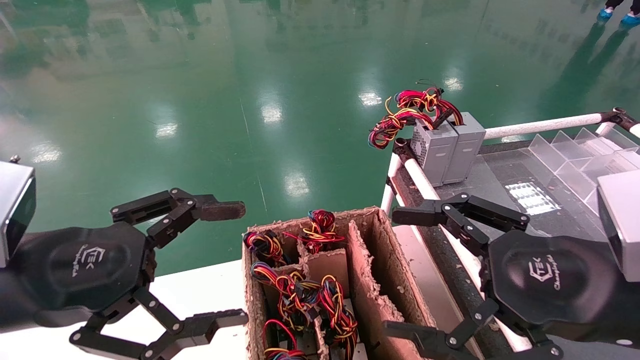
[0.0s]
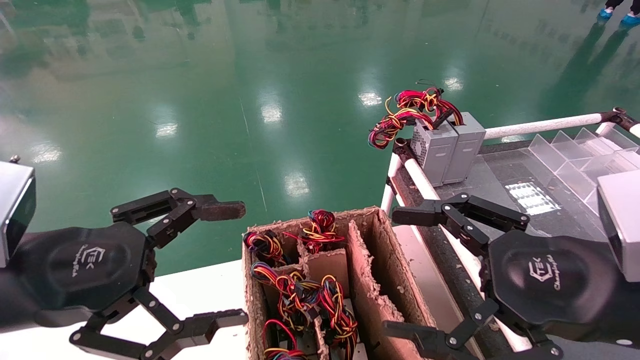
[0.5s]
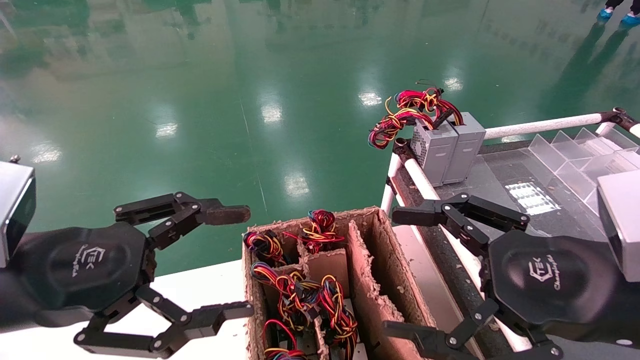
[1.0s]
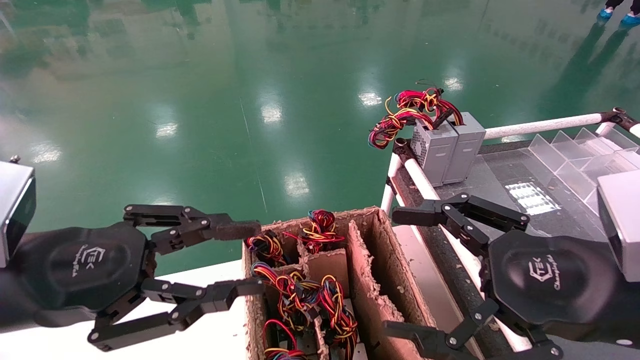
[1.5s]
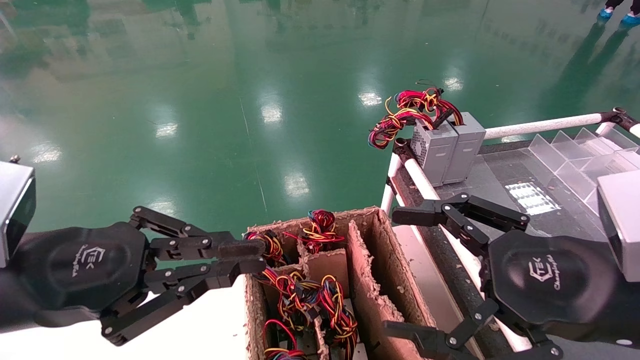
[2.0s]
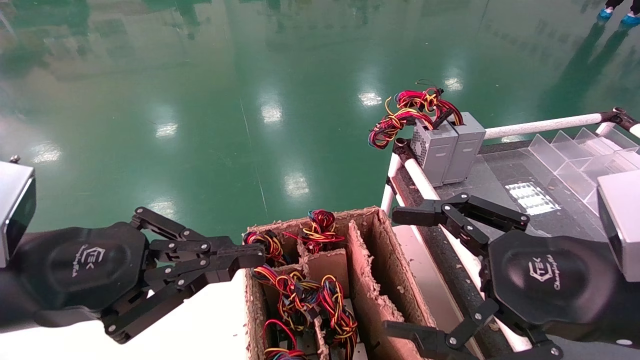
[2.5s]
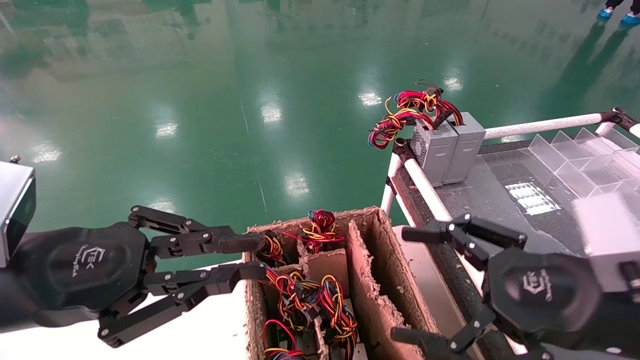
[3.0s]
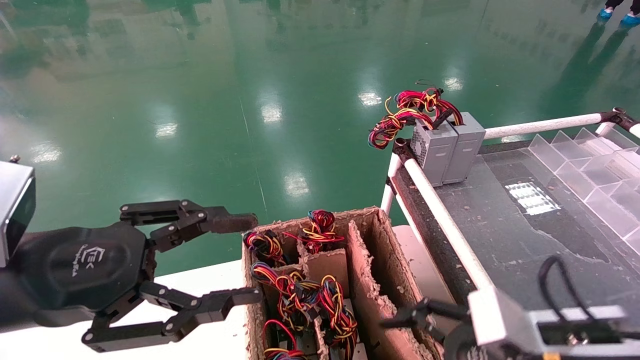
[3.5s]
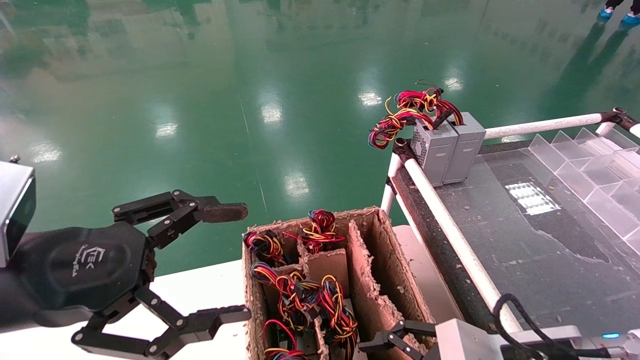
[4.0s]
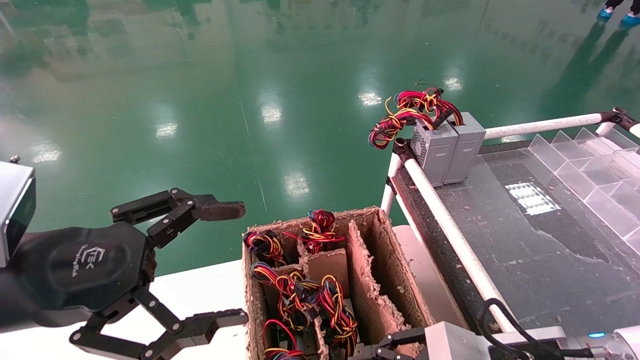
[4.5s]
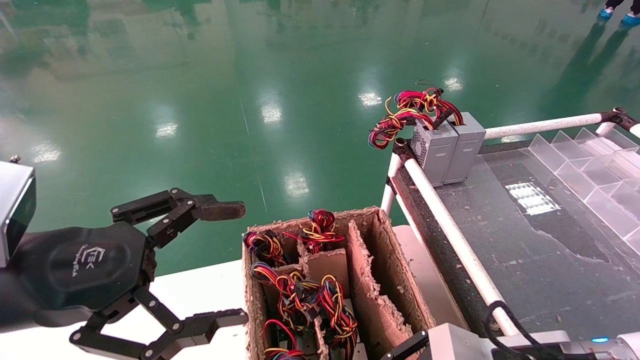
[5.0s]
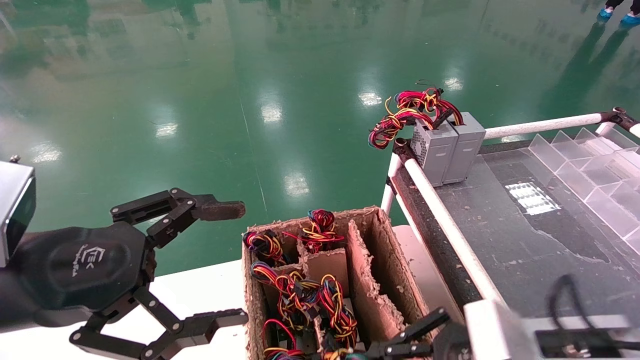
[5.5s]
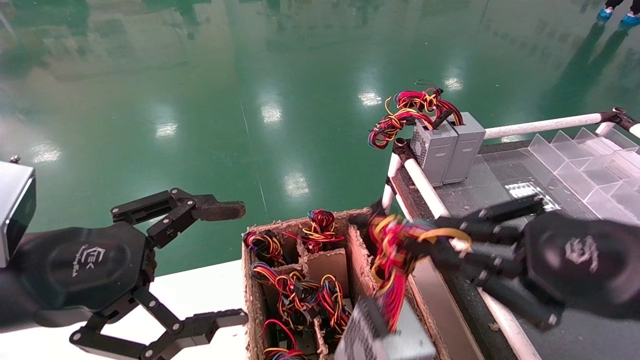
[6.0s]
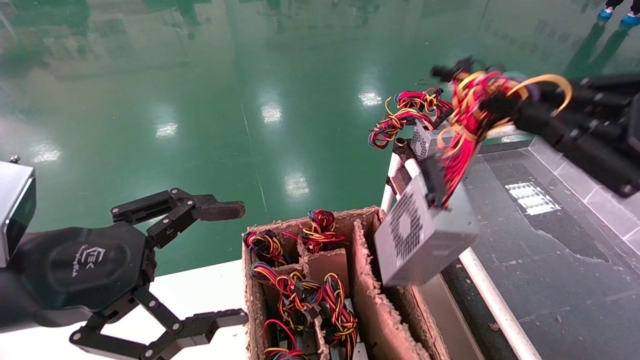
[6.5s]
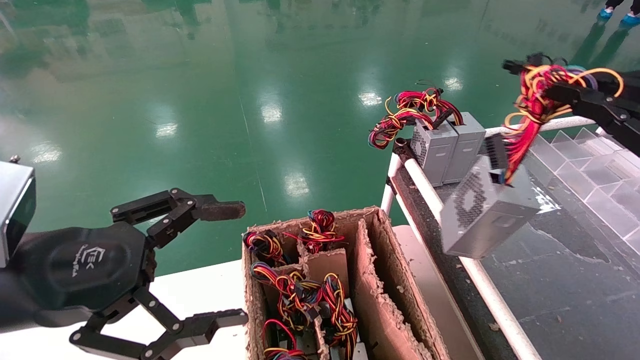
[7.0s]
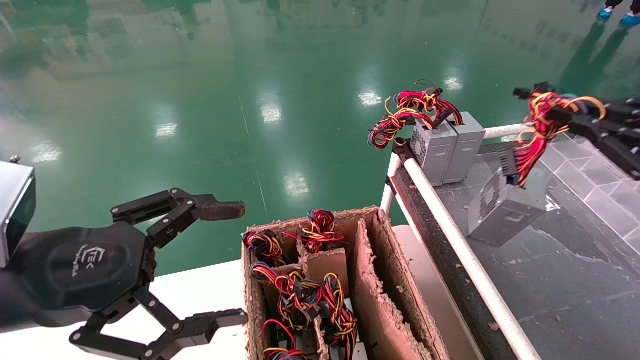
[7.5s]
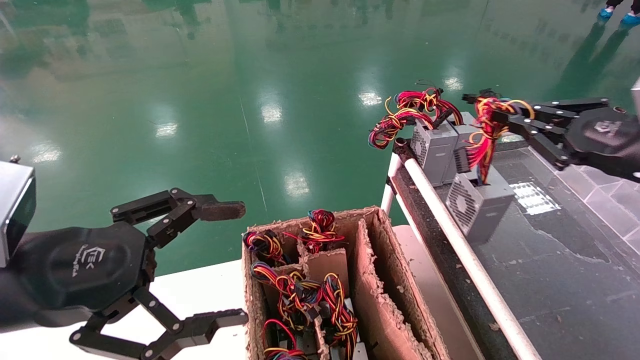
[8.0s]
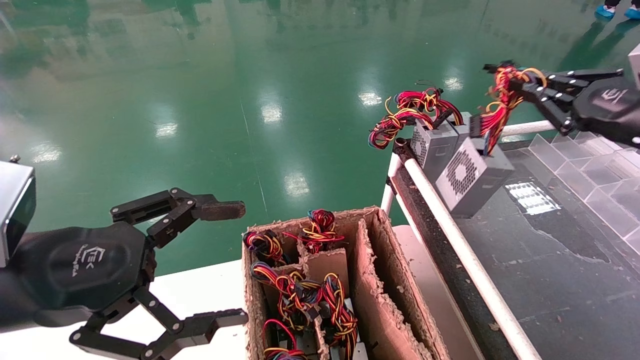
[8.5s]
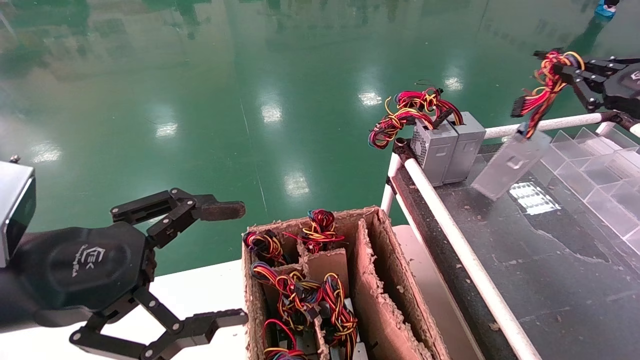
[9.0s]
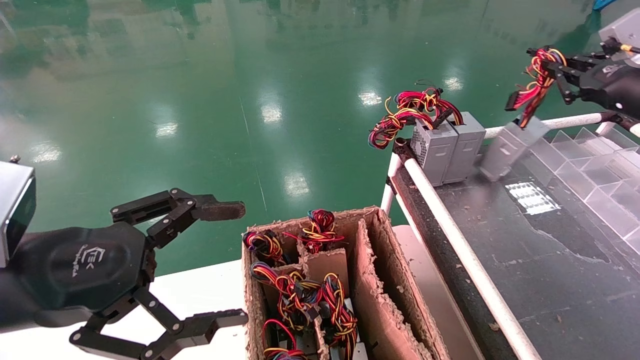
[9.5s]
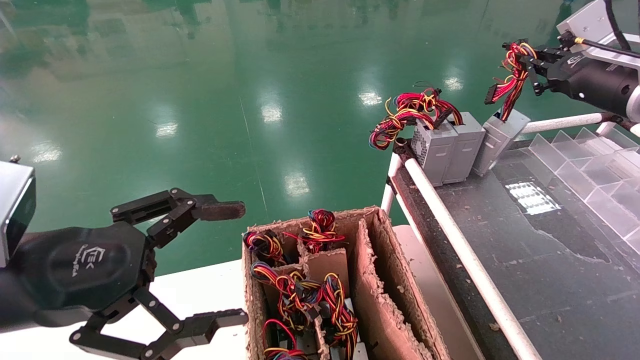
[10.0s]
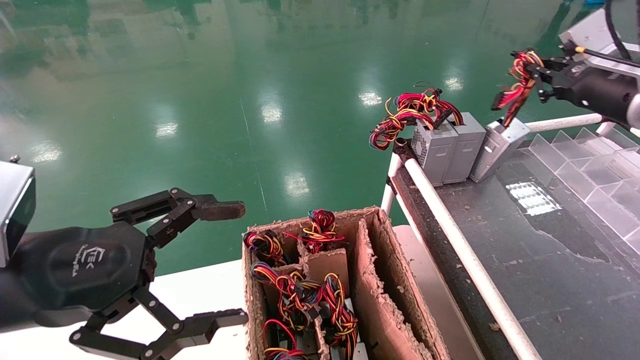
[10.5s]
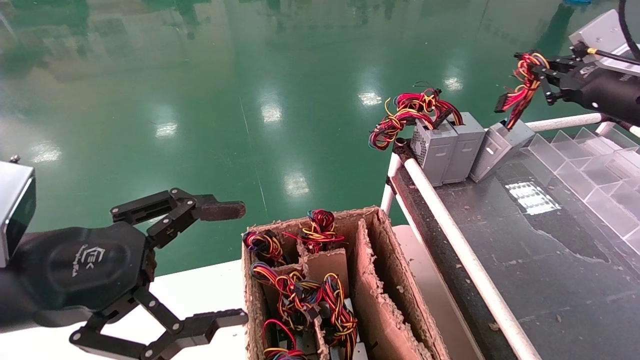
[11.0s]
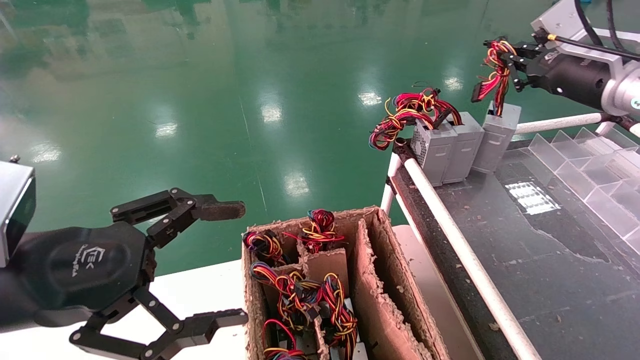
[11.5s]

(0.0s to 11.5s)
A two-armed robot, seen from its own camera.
Step, 2.5s - 5.0s: Grab and lift the power supply from the large box.
0.0s - 2.0s: The left gripper closes.
2.0s - 4.0s: The left gripper opens its fingers; the right gripper goes roughly 10 cm downward.
4.0s - 6.0s: The right gripper moves upward and to the right, some 15 cm, and closes its fingers.
6.0s - 7.5s: The right gripper heads to the right and forward, covering some 15 cm.
7.5s - 9.5s: The right gripper moves forward and upward, approximately 15 cm.
9.5s - 11.5s: The right gripper shifts some 5 cm to the left.

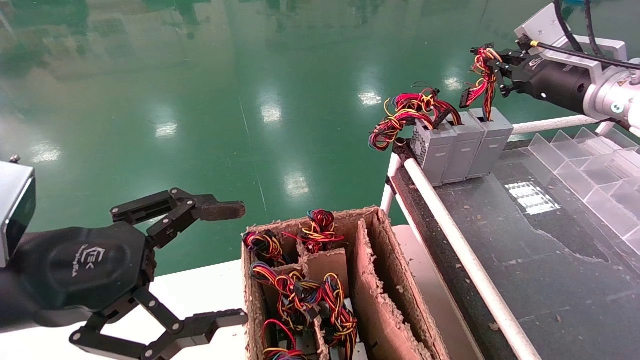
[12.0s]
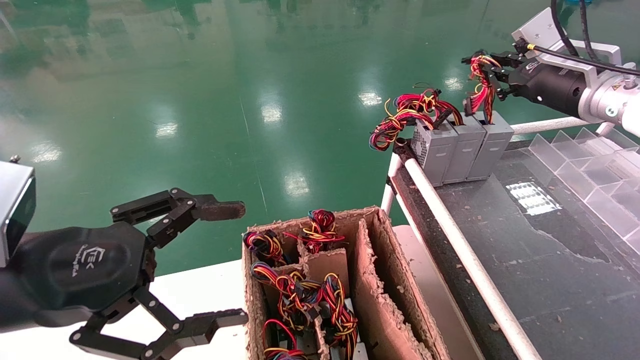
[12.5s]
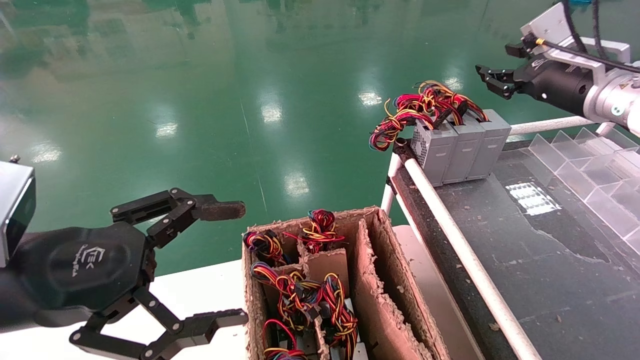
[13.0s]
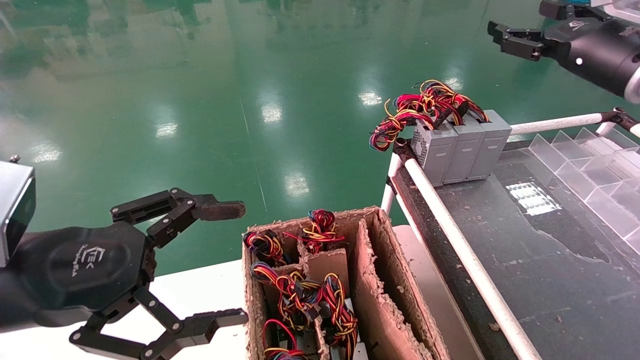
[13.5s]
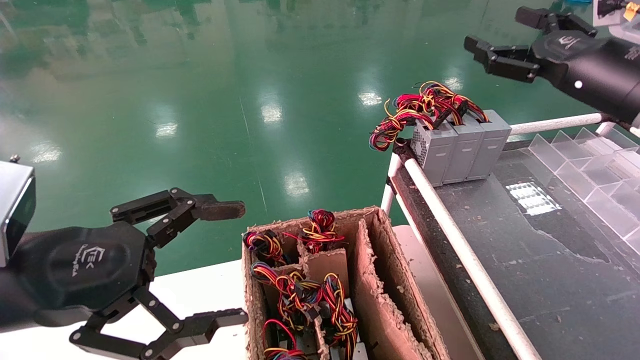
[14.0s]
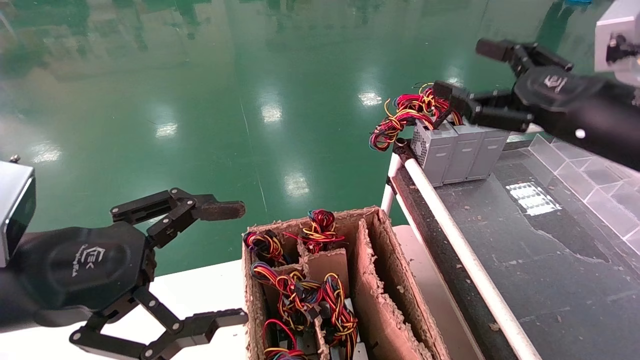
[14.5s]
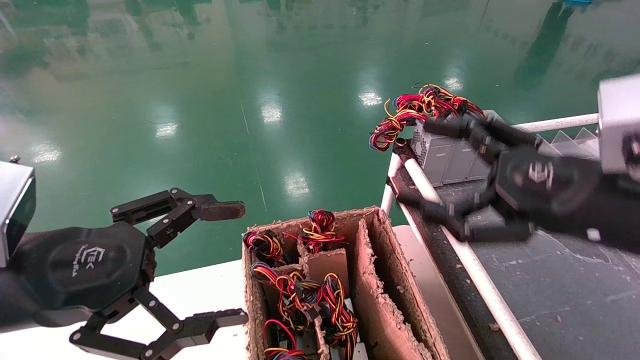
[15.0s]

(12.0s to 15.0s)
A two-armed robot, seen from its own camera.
12.0s - 13.5s: The right gripper opens its fingers.
13.5s - 15.0s: The right gripper goes roughly 20 cm backward, downward and to the left.

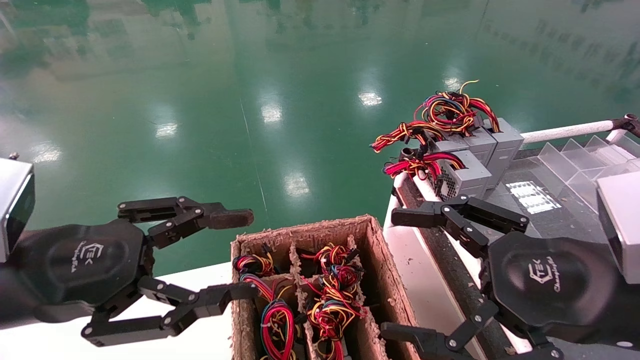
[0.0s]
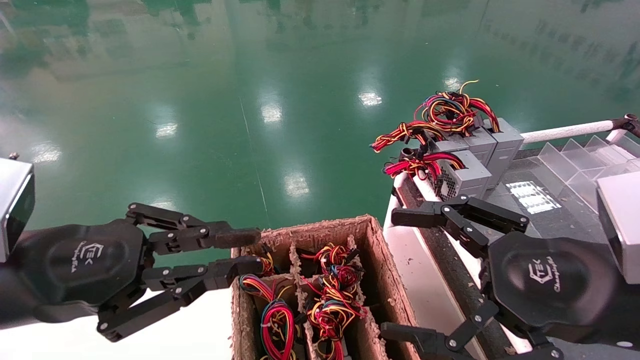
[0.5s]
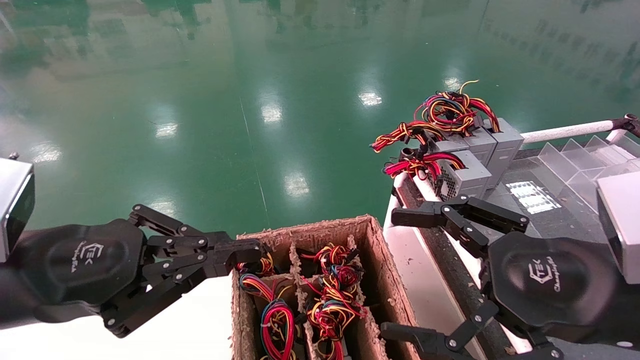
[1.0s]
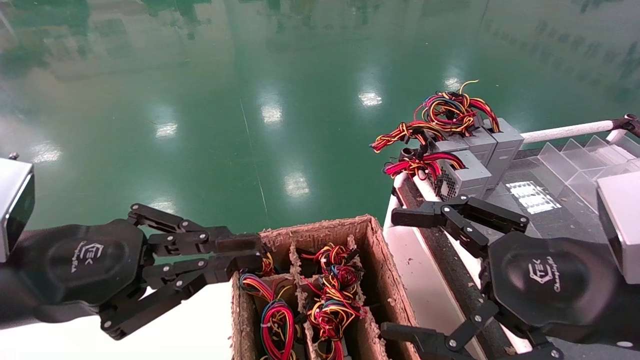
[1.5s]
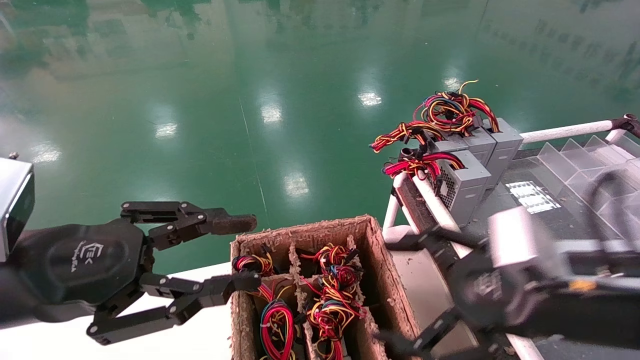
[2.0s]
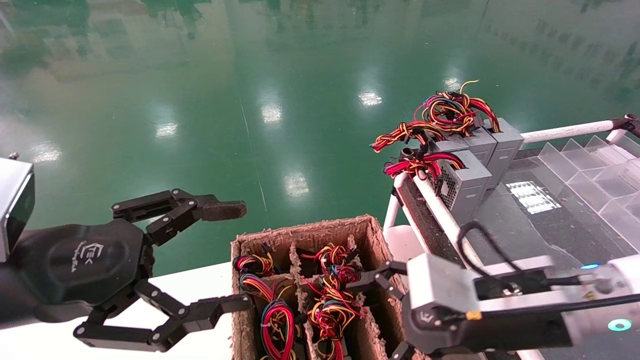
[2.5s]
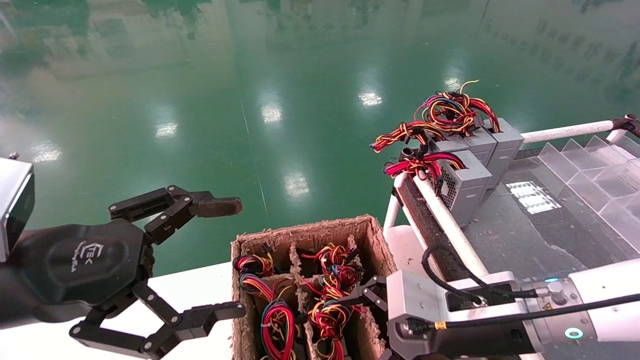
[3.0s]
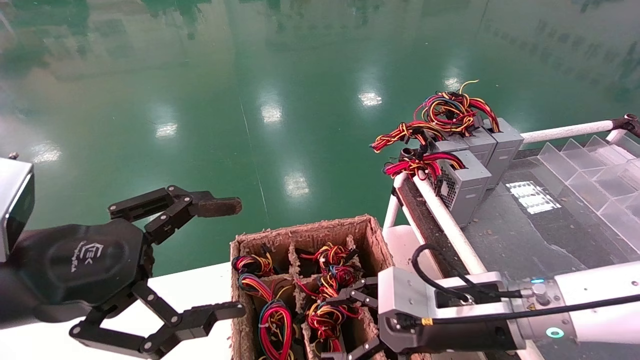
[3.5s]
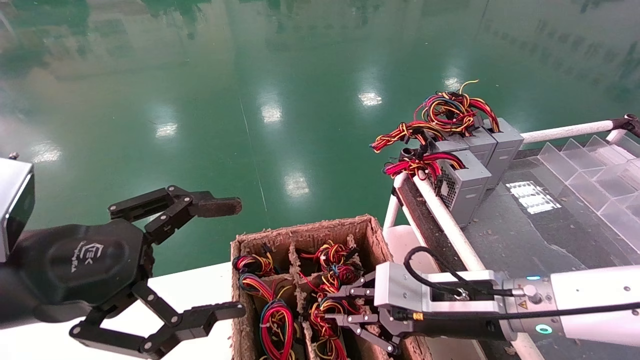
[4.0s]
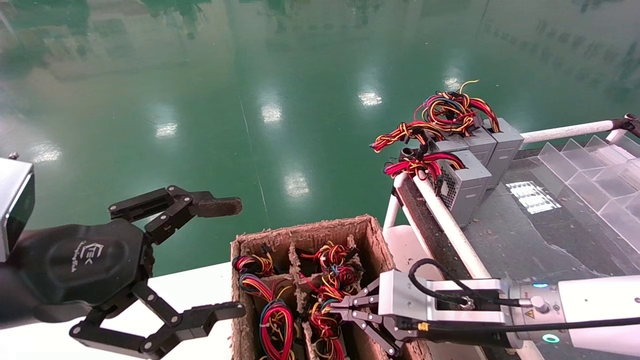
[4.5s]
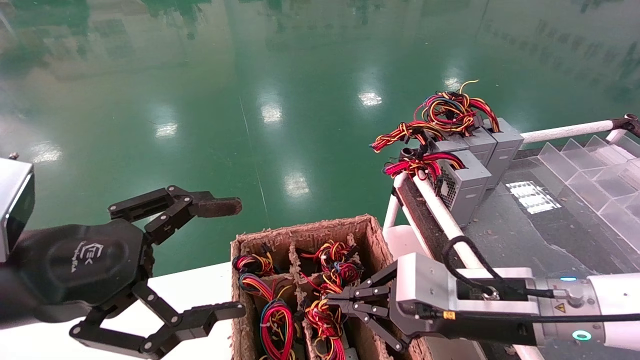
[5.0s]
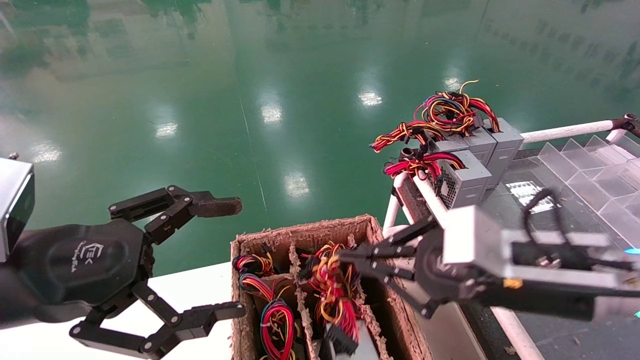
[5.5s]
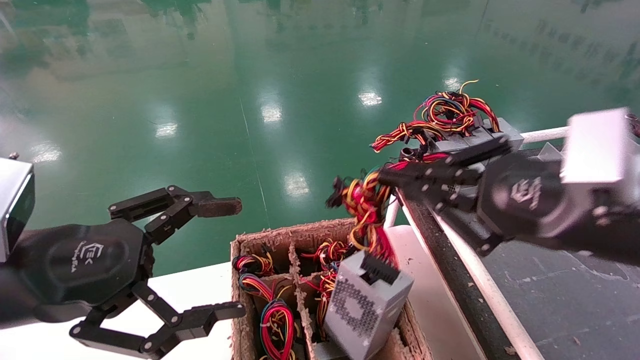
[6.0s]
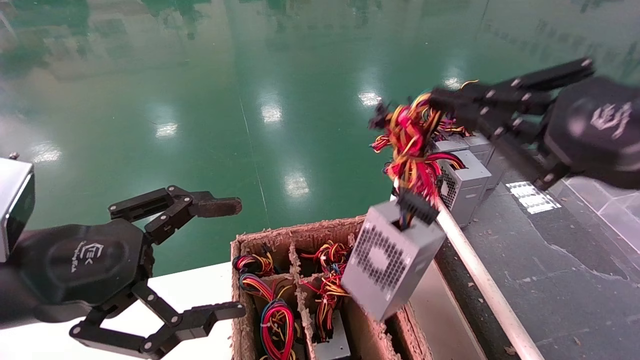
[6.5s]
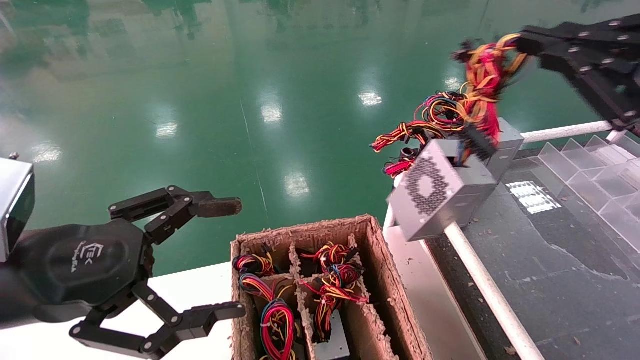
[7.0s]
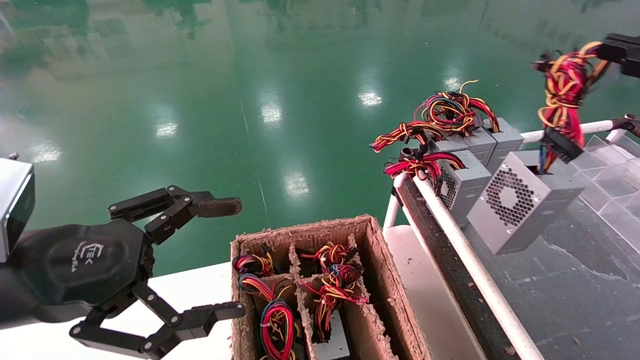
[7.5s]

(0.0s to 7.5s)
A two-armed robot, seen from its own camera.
Step, 1.0s - 4.0s: Grab and lift the power supply from the large box.
0.0s - 2.0s: There are only small adjustments of the grippers.
2.0s - 4.0s: The left gripper opens, while the right gripper travels forward, downward and to the left by approximately 10 cm, and closes its fingers.
4.0s - 5.5s: The right gripper is displaced upward by some 10 cm.
5.5s - 7.5s: The right gripper heads to the right and upward, covering some 25 cm.
